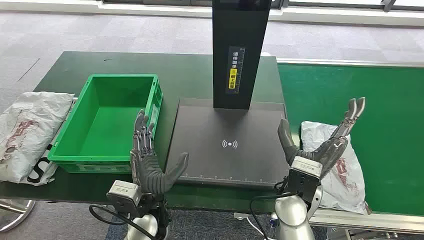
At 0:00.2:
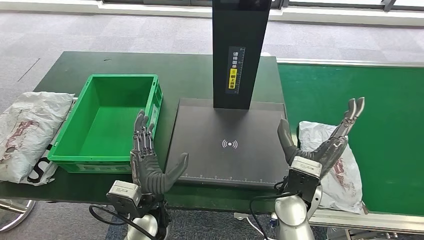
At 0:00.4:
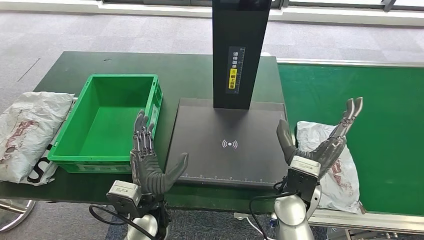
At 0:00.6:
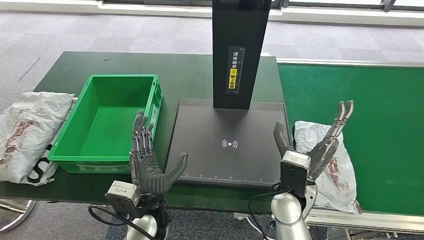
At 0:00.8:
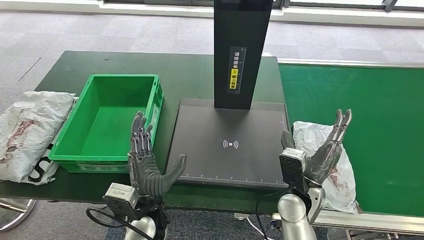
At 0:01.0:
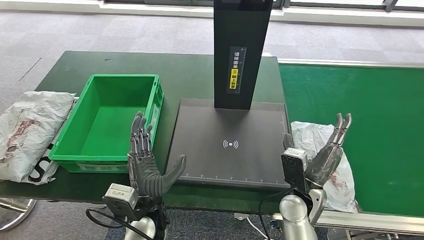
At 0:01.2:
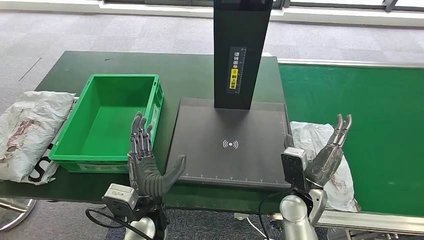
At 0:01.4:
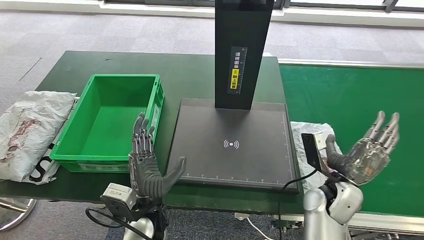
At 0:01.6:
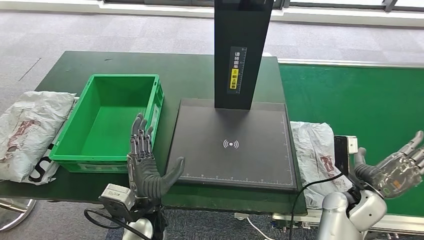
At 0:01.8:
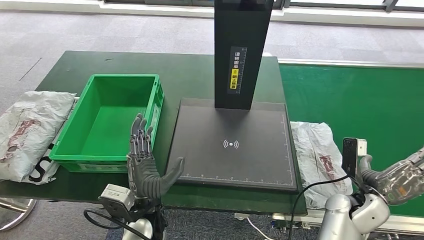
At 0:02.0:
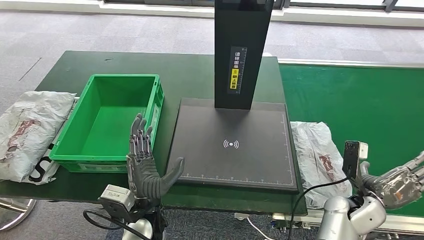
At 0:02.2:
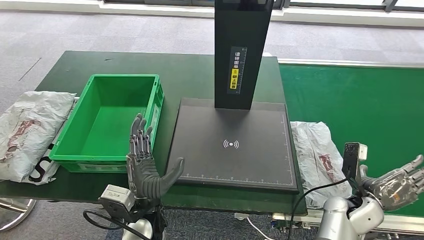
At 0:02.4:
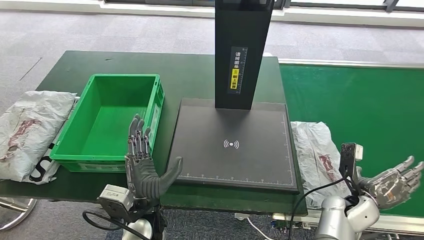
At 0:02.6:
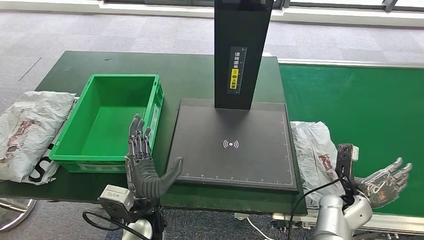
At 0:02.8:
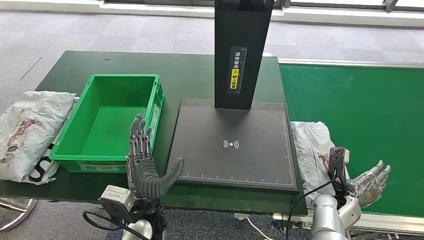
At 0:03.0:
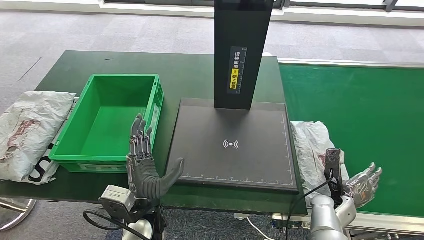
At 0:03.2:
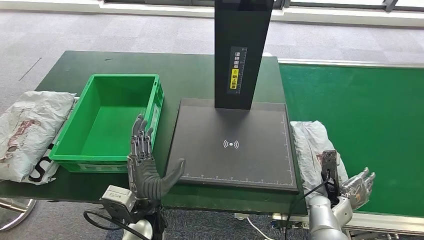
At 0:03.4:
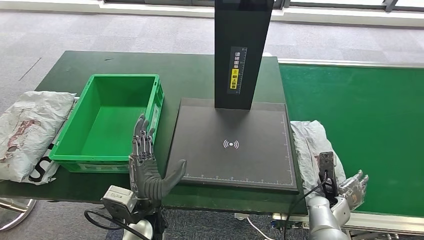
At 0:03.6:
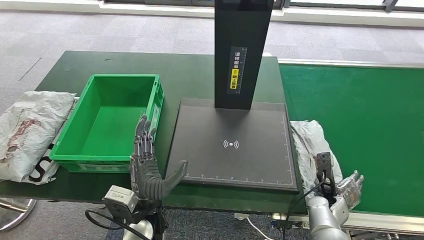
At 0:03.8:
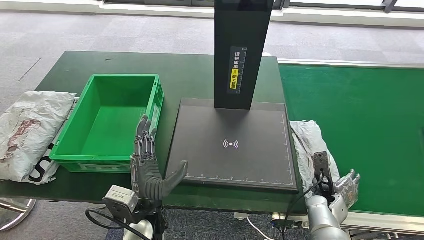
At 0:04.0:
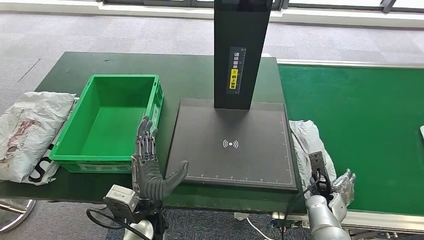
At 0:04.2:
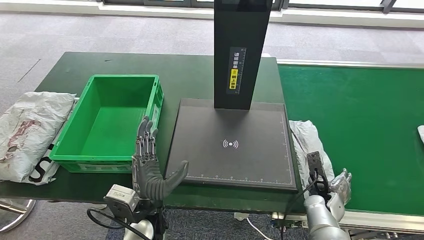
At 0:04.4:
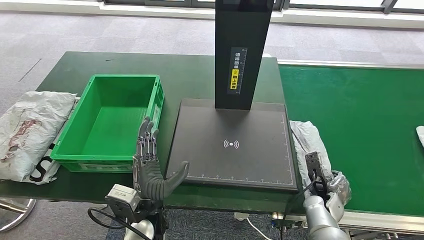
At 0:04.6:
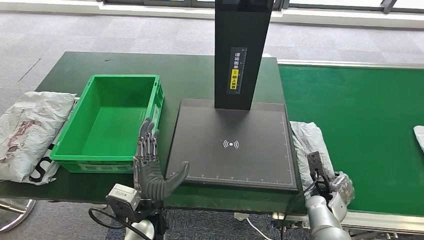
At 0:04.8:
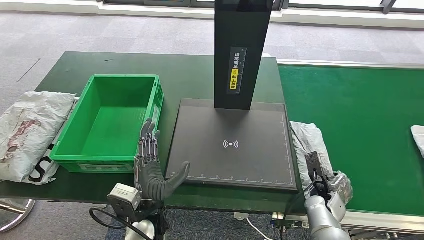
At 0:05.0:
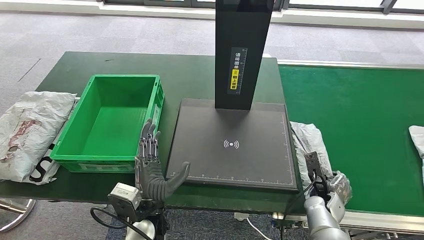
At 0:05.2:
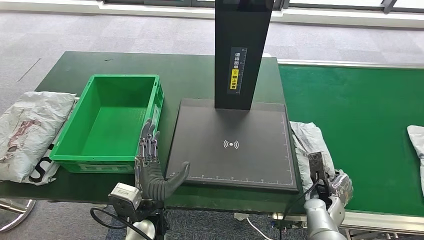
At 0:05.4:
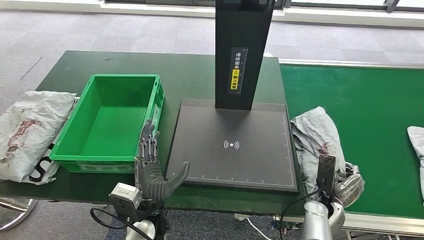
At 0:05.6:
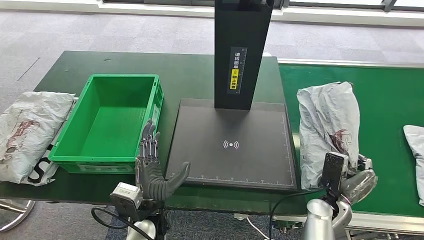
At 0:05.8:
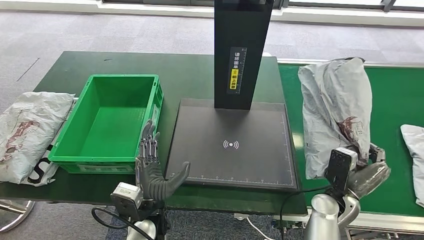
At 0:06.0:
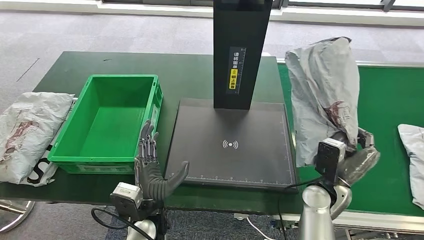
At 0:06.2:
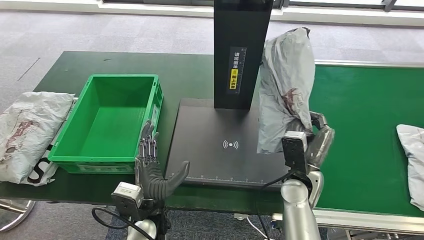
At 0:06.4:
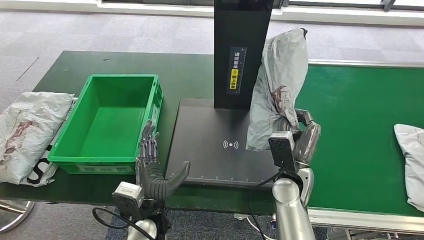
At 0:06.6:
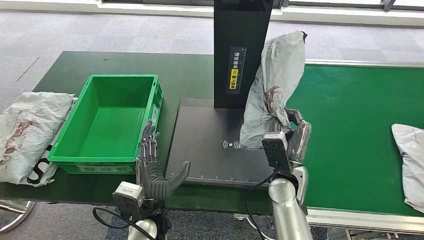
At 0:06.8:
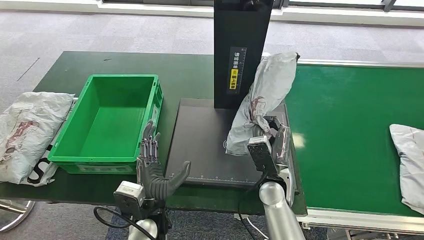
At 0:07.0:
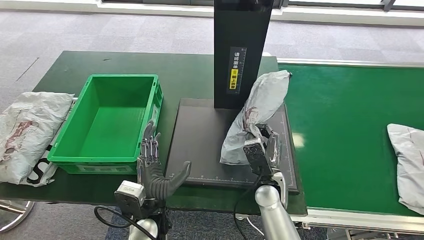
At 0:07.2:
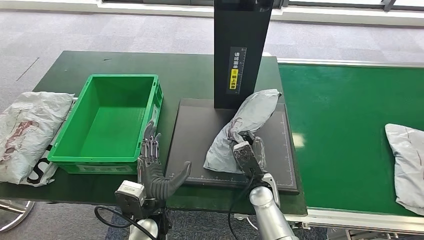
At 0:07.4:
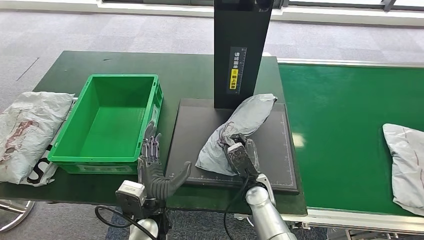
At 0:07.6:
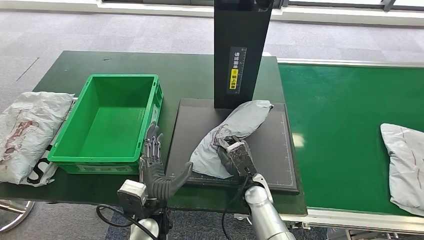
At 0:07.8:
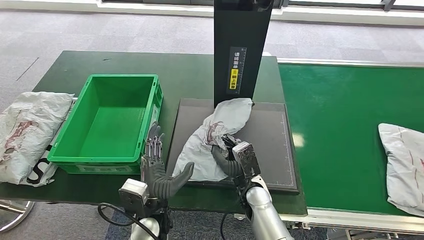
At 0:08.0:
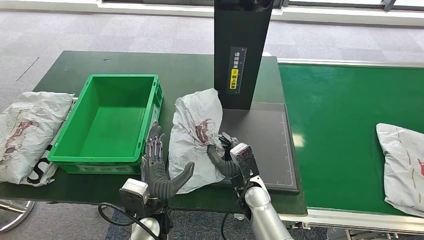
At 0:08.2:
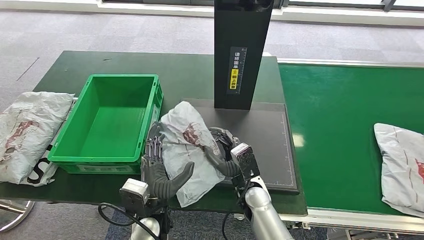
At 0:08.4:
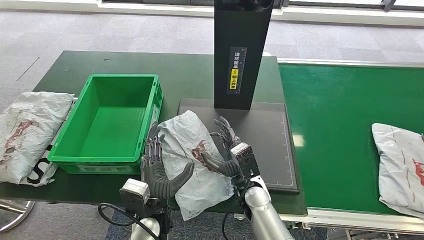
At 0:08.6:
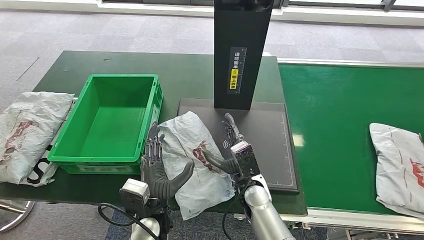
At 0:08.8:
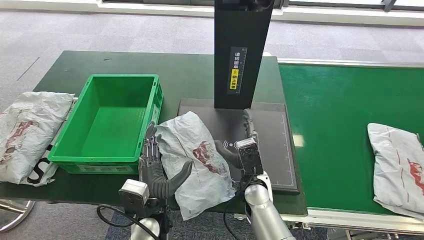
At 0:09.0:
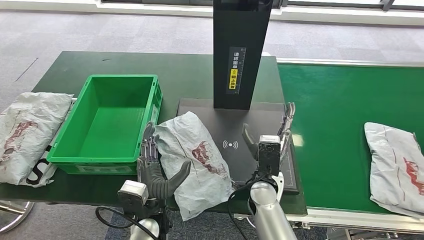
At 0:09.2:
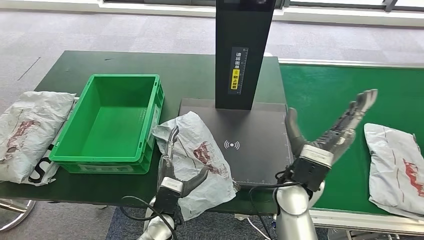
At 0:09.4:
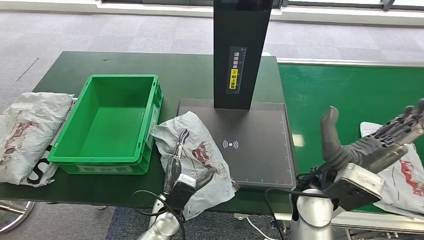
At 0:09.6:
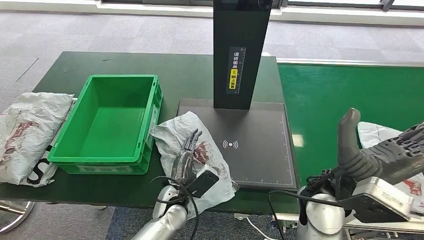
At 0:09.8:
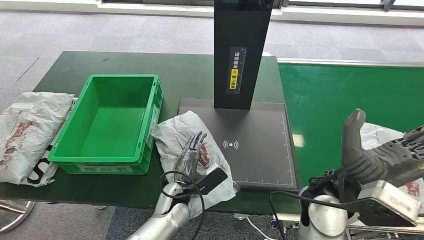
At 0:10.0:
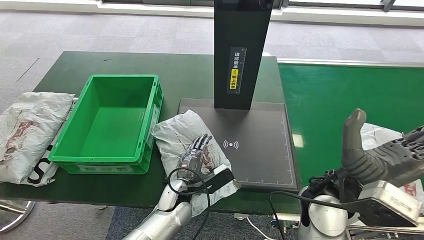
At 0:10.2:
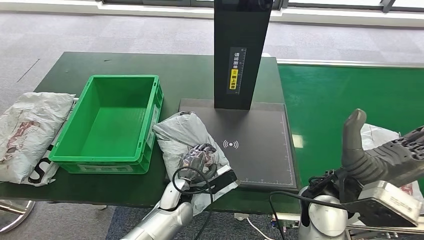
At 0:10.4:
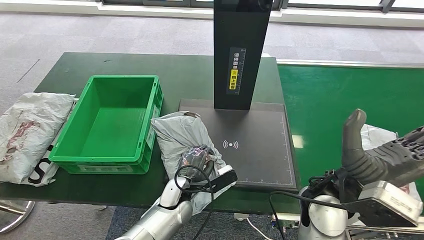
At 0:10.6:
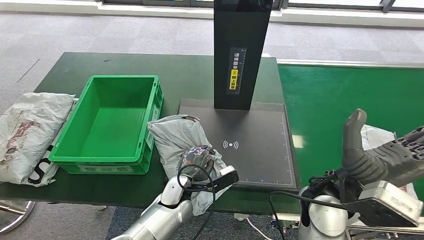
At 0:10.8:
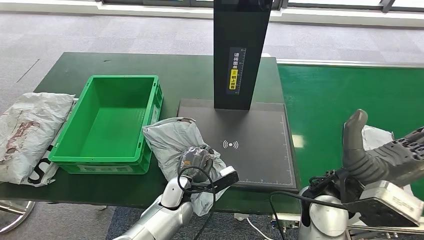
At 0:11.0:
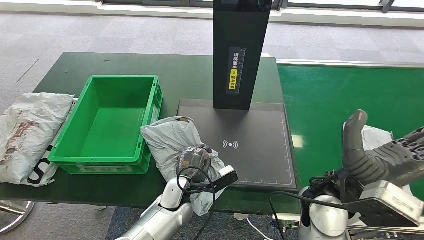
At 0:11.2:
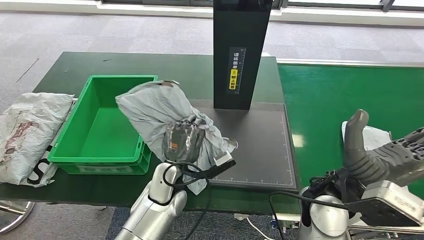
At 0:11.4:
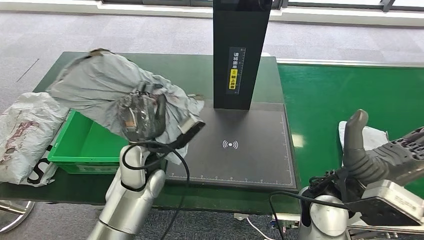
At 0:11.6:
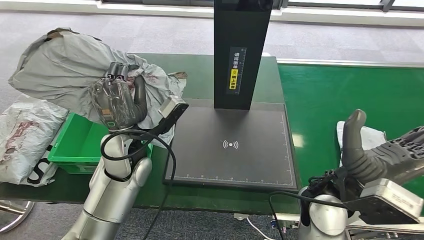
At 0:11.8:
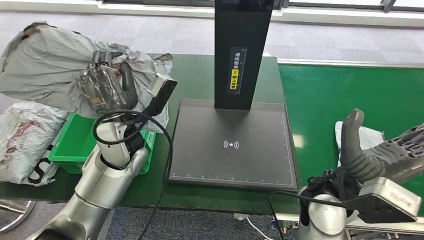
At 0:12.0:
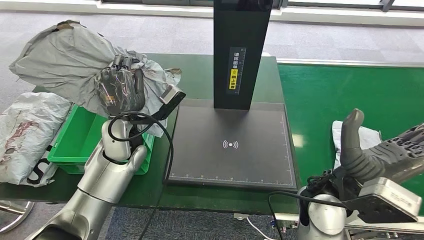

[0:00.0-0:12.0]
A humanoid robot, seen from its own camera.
Step, 0:00.0 to 0:06.0: Take the parcel off the conveyor belt.
Step, 0:06.4 to 0:08.4: Place the parcel onto the inbound machine.
Step, 0:08.6 to 0:11.8: Pick up the parcel from the inbound machine.
0:01.6 to 0:03.0: The right hand goes about 10 cm downward.
0:07.6 to 0:09.0: The right hand travels upward by some 5 cm.

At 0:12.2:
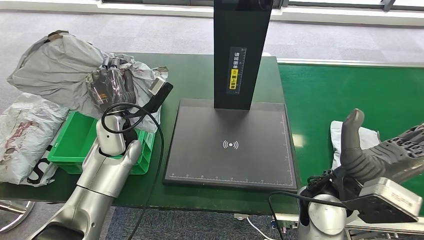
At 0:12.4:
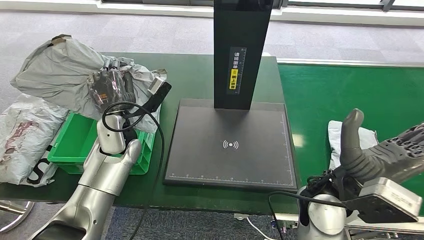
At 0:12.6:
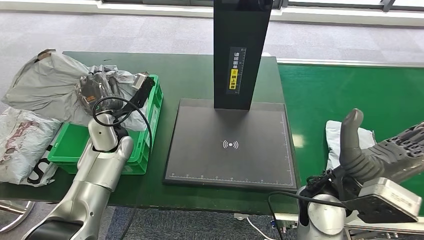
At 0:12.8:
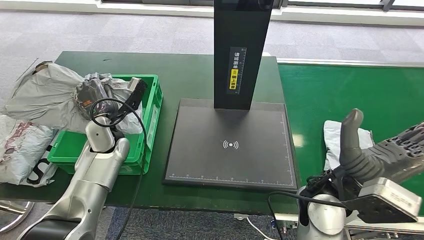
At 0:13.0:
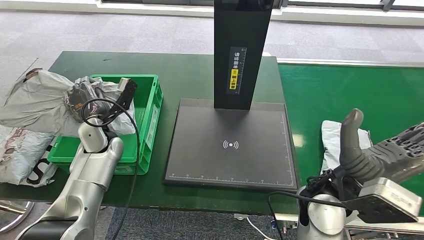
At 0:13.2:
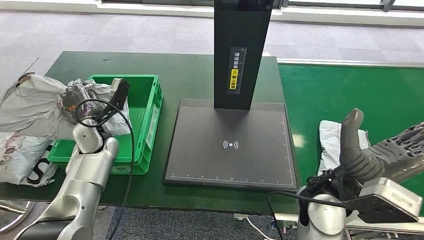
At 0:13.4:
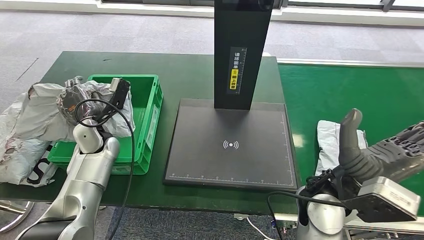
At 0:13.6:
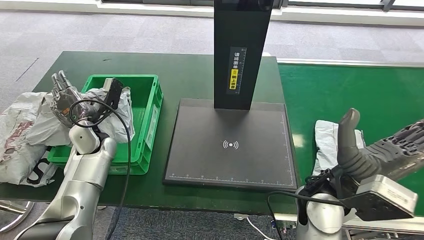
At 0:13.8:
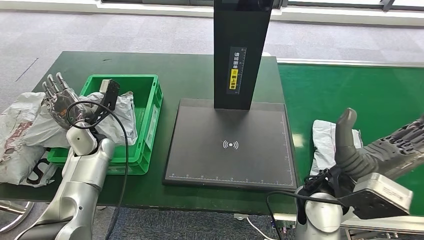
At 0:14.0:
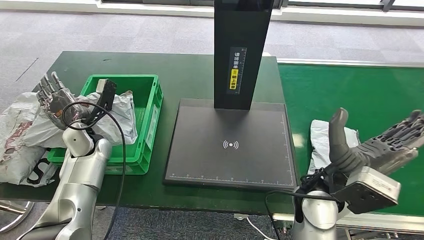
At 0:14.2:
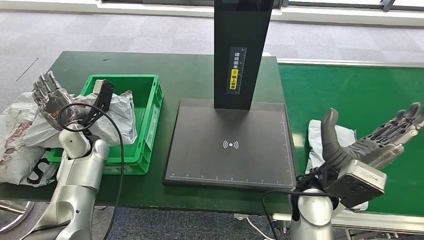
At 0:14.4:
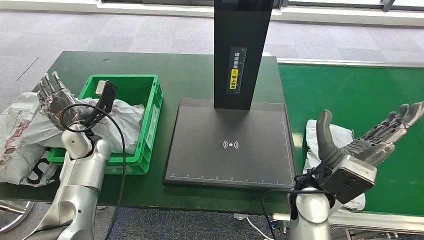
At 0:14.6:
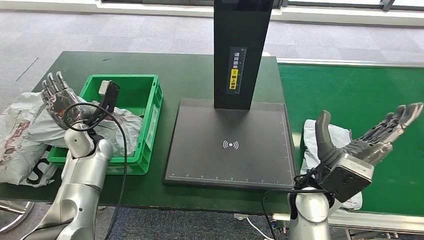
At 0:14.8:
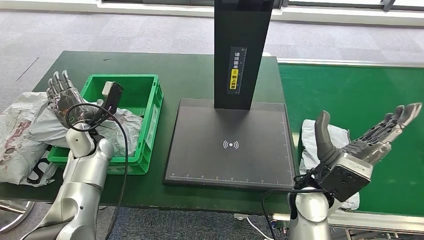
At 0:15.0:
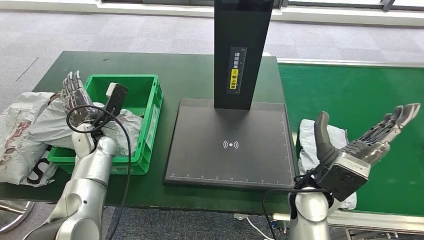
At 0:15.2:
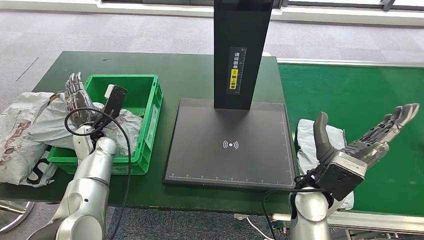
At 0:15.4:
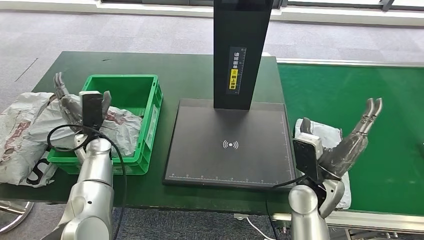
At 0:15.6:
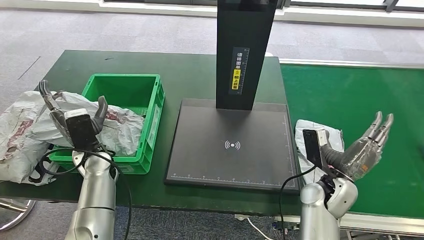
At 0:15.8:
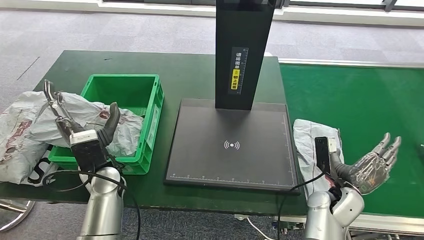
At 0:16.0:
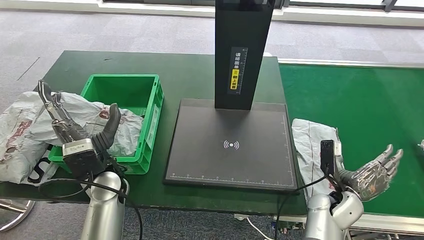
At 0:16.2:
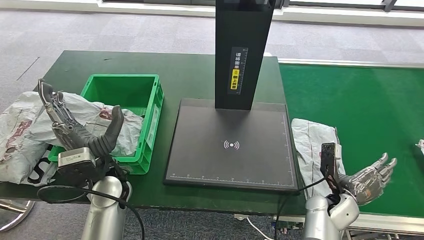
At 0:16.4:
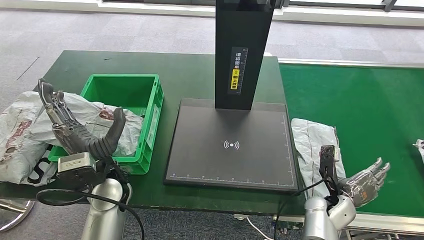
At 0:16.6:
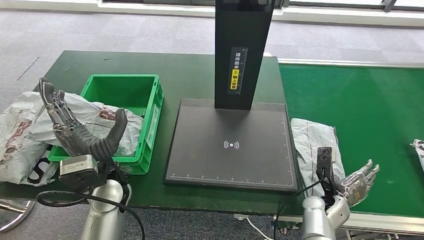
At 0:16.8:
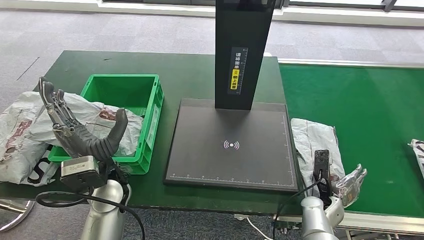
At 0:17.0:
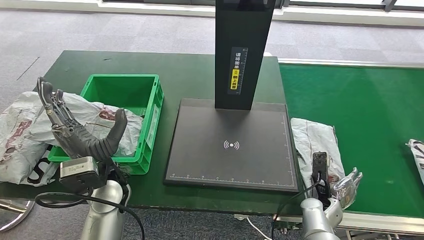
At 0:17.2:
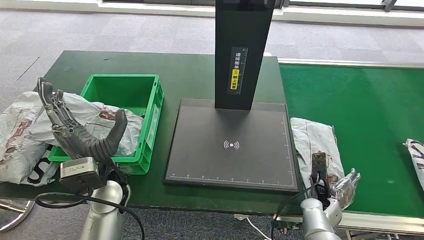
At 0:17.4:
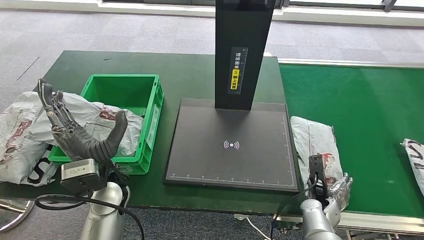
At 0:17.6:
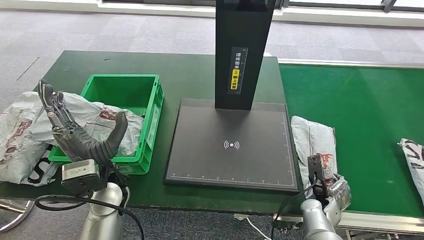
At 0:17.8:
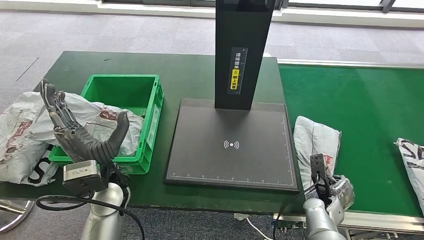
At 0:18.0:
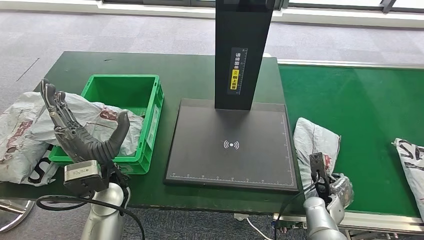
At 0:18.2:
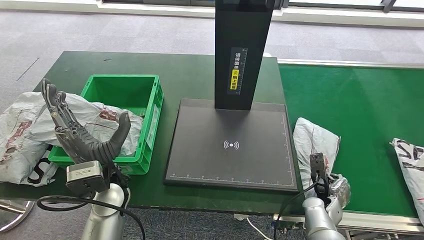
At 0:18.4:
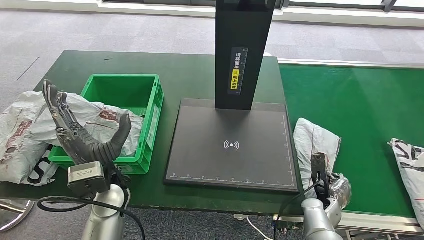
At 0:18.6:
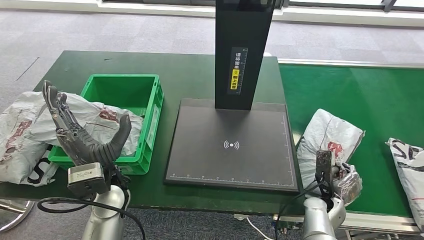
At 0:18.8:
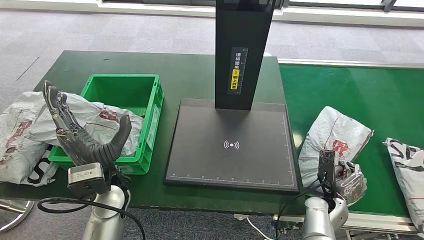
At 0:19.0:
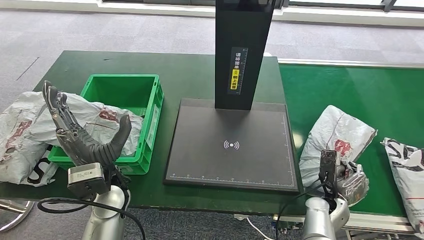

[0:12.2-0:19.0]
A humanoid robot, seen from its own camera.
Step, 0:12.2 to 0:15.4: Put the parcel inside the courier box.
0:13.6 to 0:15.0: The hands move only a little.
0:15.0 to 0:16.2: The left hand is displaced backward and to the right by about 15 cm. Meanwhile the right hand moves downward and to the right, roughly 15 cm.
0:16.2 to 0:17.6: The right hand heads downward, covering approximately 5 cm.
